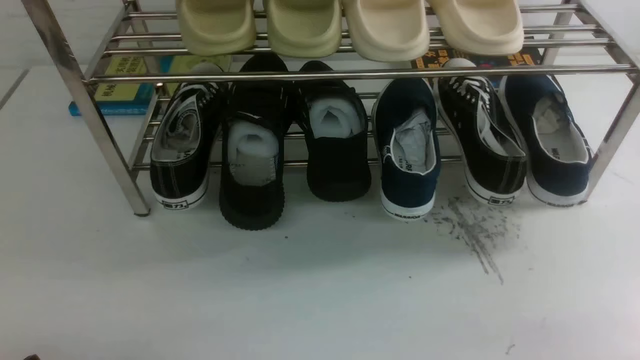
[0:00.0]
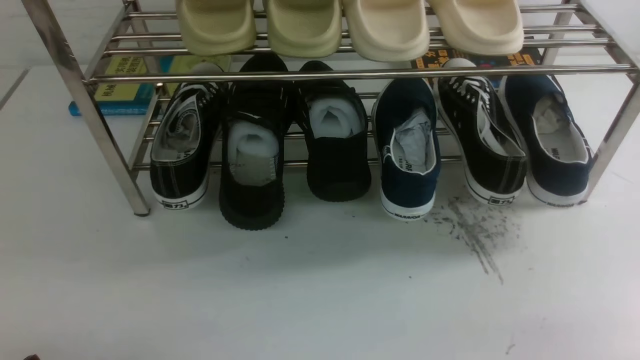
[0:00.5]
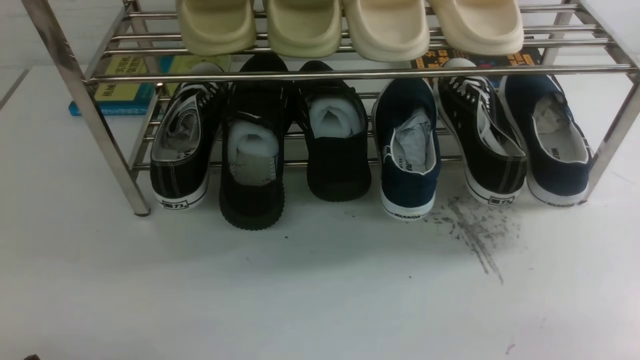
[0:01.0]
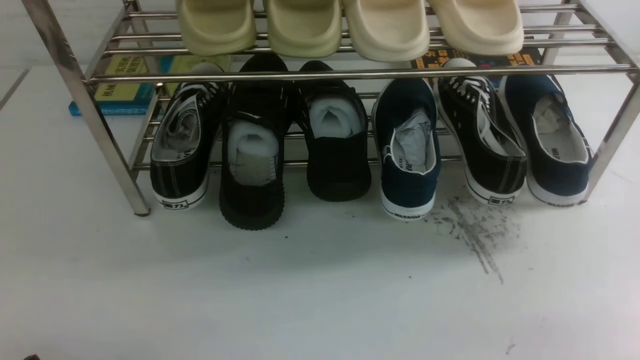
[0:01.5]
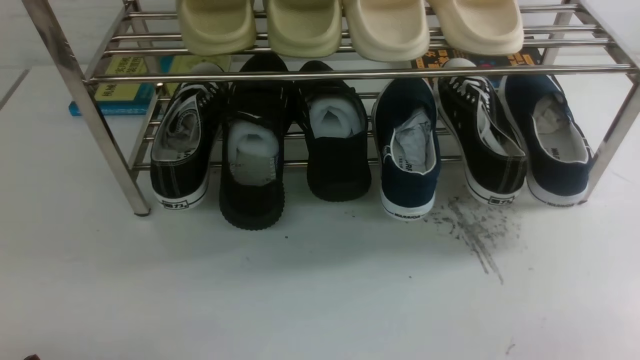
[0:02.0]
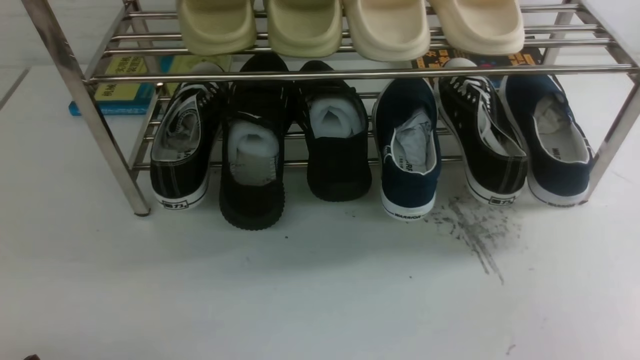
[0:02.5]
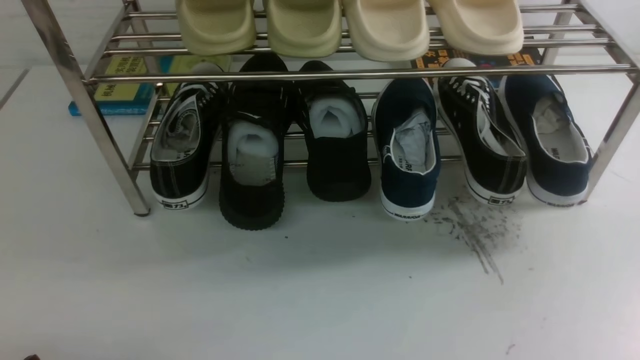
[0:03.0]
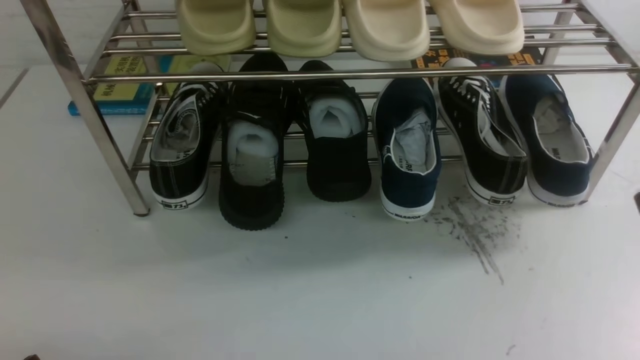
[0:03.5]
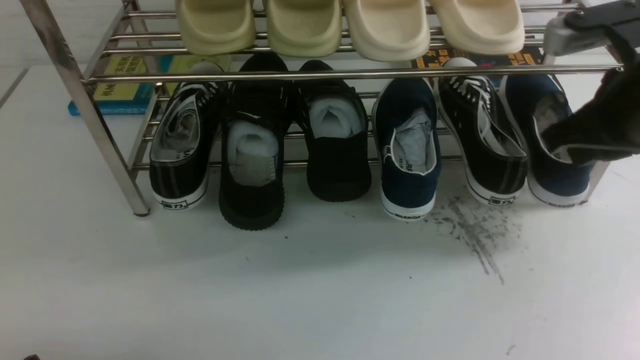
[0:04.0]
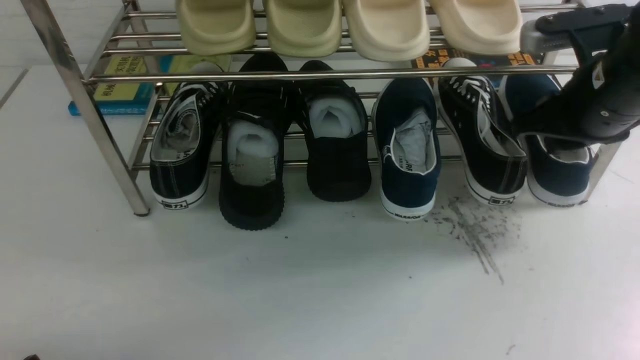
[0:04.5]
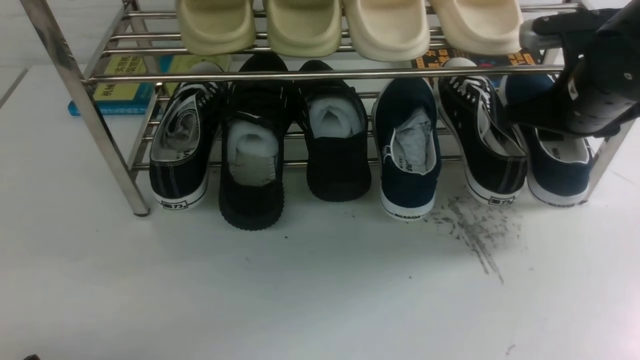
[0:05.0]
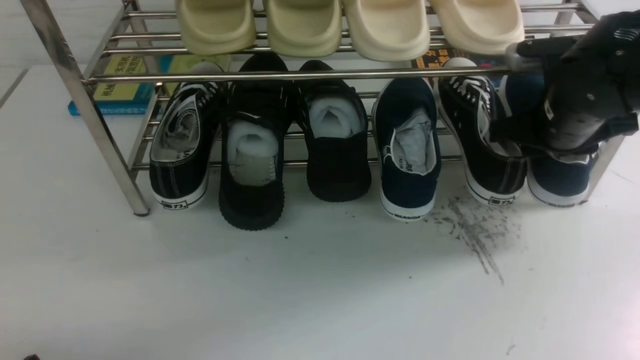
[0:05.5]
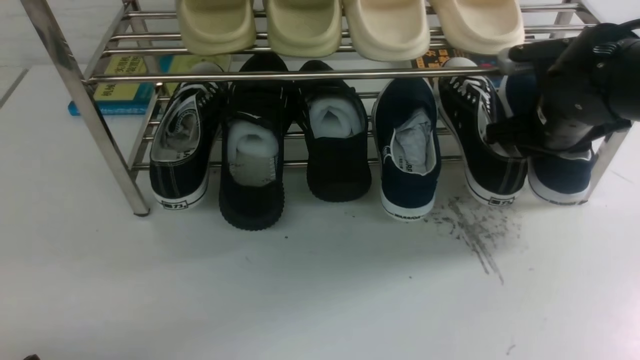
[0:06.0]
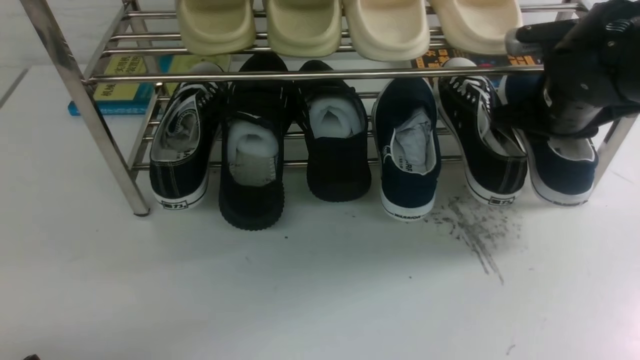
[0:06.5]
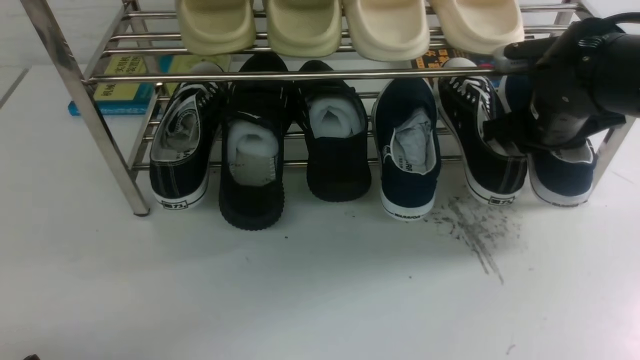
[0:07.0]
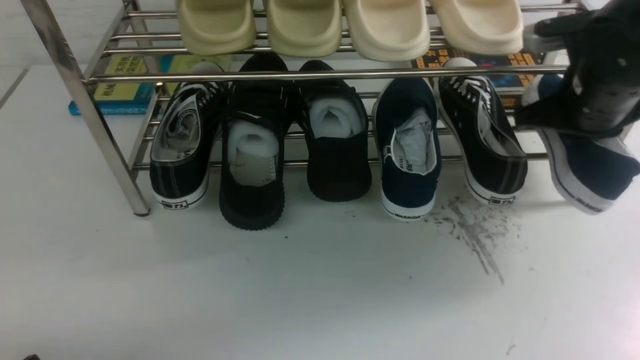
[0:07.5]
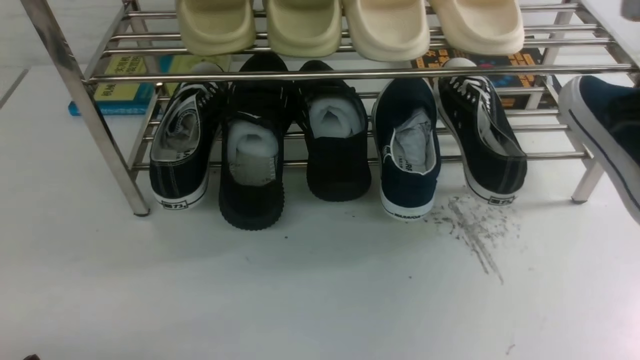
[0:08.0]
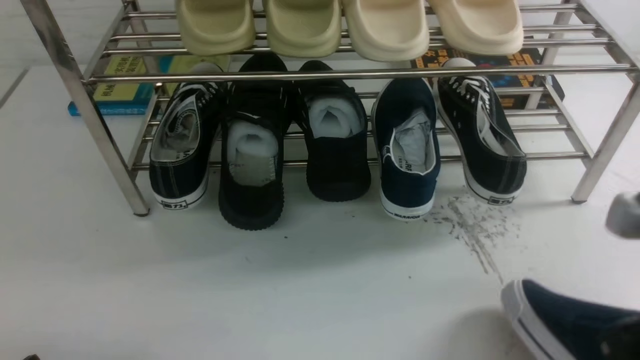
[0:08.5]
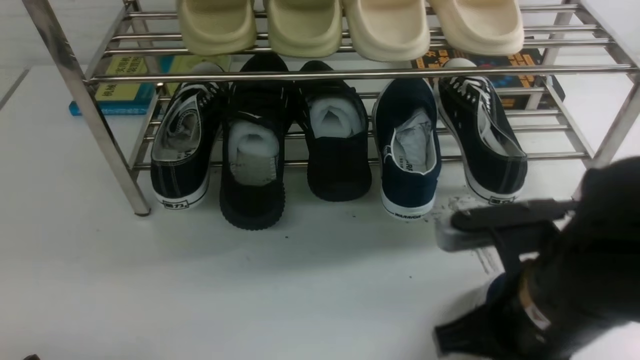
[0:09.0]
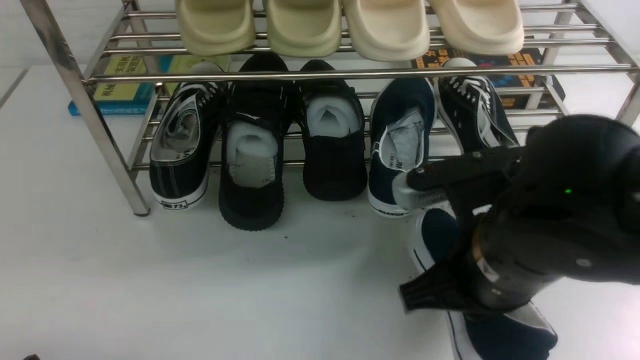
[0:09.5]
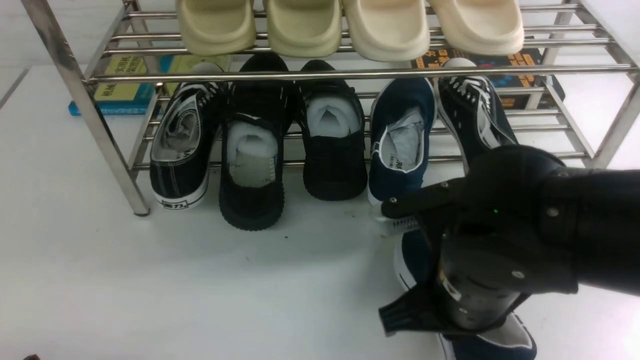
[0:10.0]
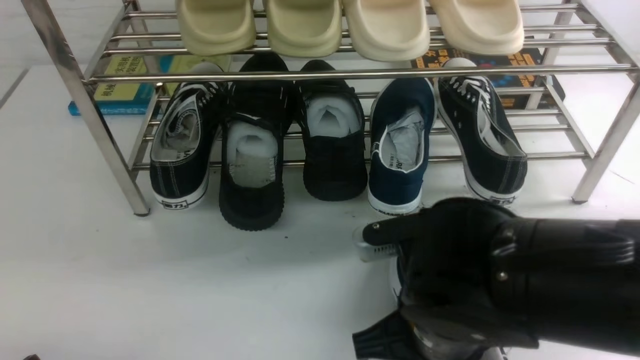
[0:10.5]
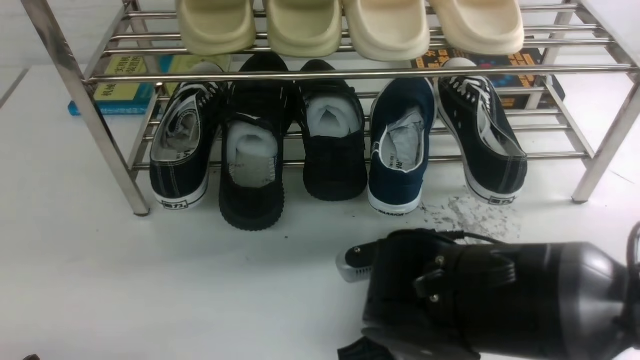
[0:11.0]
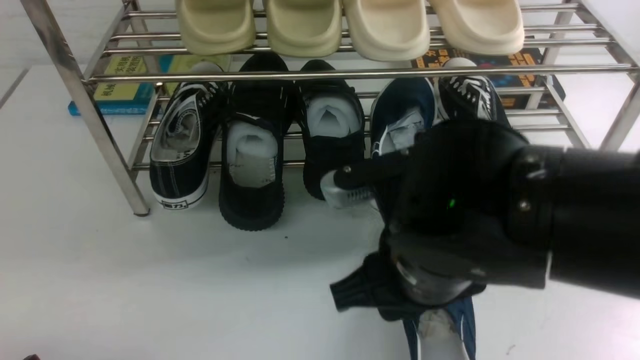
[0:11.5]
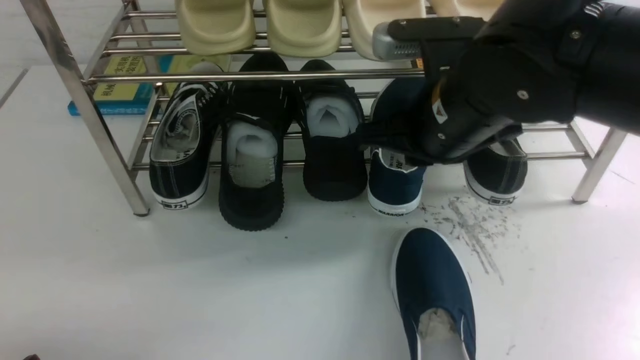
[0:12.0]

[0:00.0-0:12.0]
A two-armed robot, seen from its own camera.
Step, 0:00.0 to 0:07.5: use the right arm to clamp a shoe on the right side of the shoe rack.
Step, 0:08.0 to 0:11.5: use the right arm to take out the clamped shoe from the shoe rack and put it down.
0:02.0 to 0:04.0: The right gripper goes about 30 cm forward and upward, and closes.
0:04.0 to 0:06.0: The right gripper shifts roughly 15 cm forward and downward, and opens its fingers.
0:06.0 to 0:08.0: The right gripper goes roughly 20 cm backward and upward, and closes up.
0:08.0 to 0:10.0: The right gripper heads to the left and downward, covering about 20 cm.
0:10.0 to 0:12.0: The right gripper heads forward and upward, covering approximately 10 cm, and opens, then closes once more.

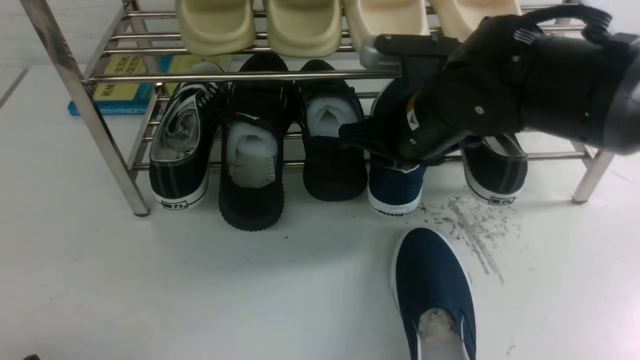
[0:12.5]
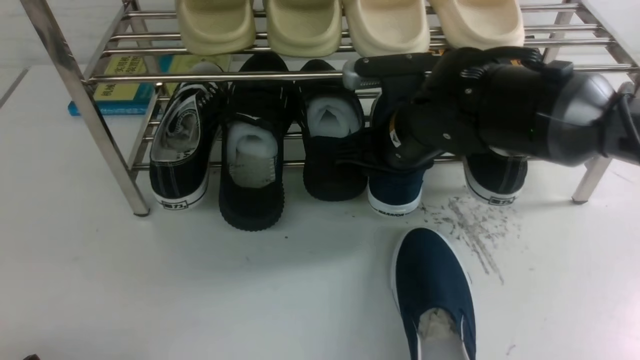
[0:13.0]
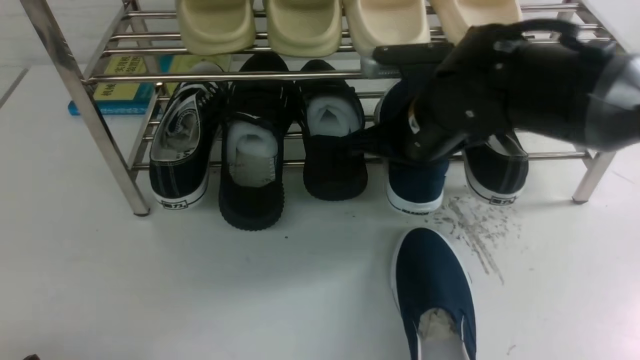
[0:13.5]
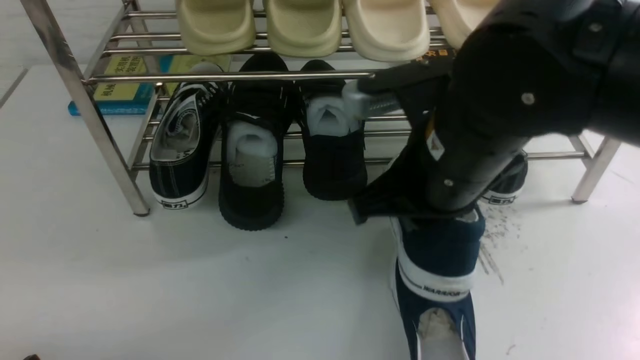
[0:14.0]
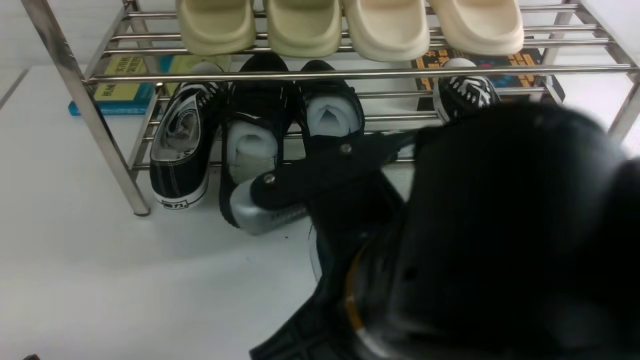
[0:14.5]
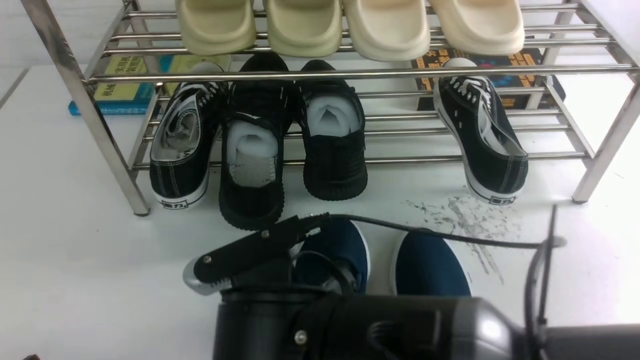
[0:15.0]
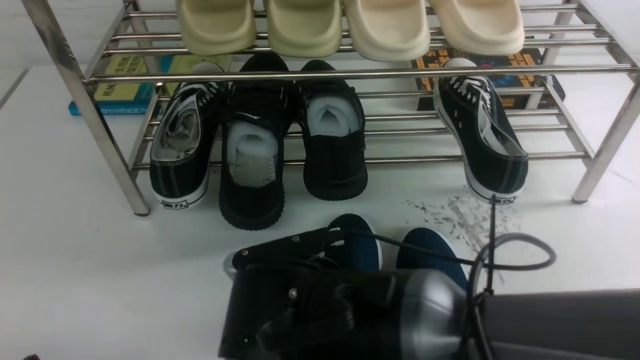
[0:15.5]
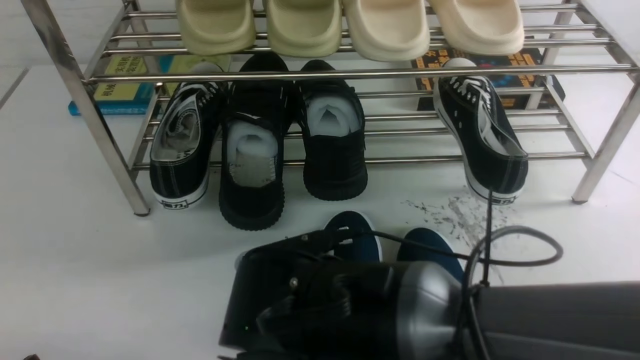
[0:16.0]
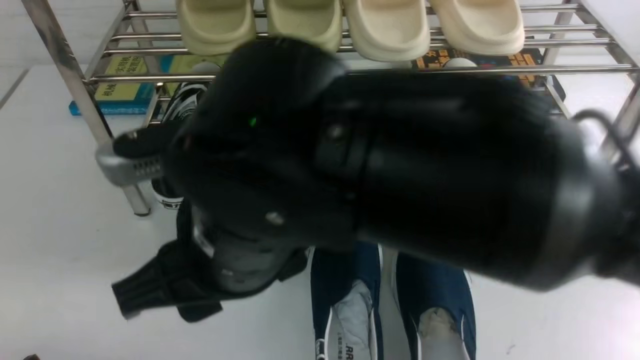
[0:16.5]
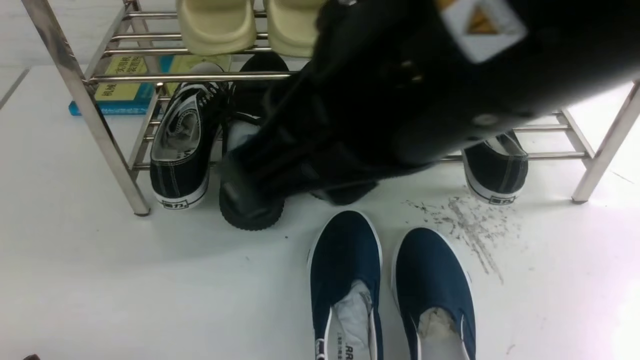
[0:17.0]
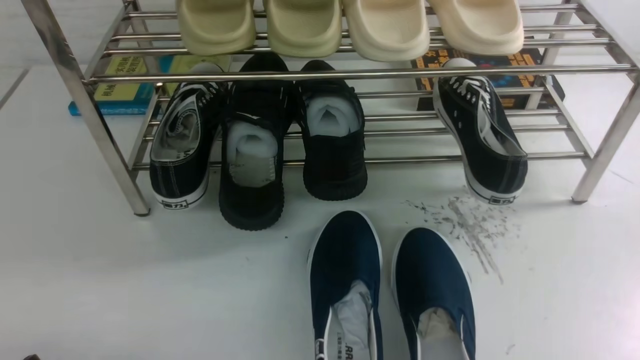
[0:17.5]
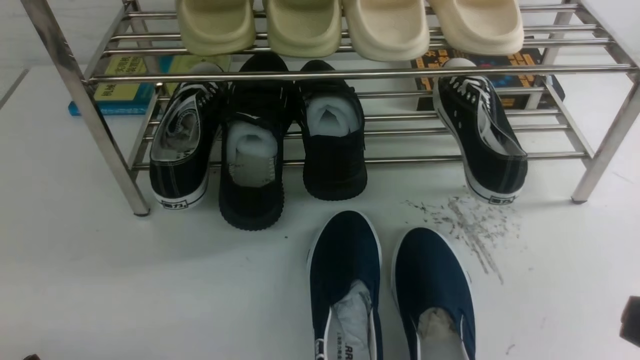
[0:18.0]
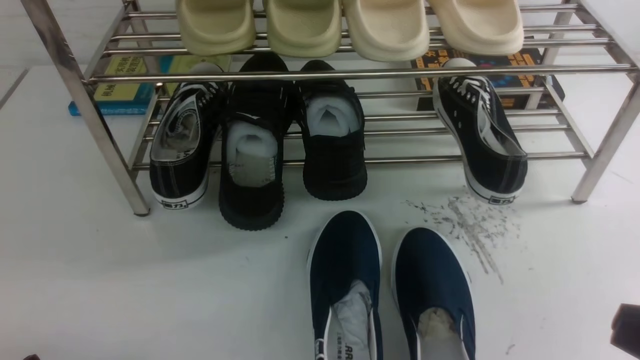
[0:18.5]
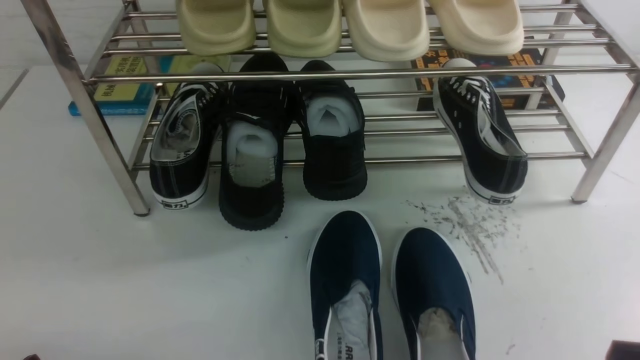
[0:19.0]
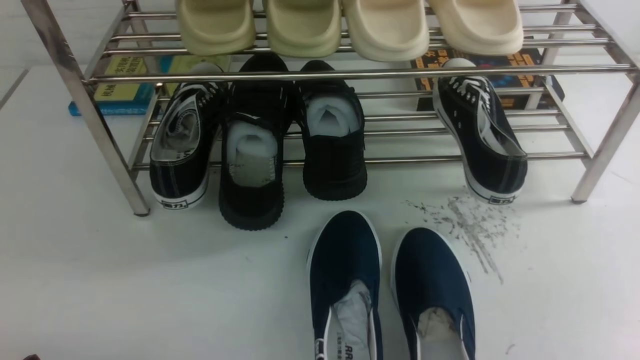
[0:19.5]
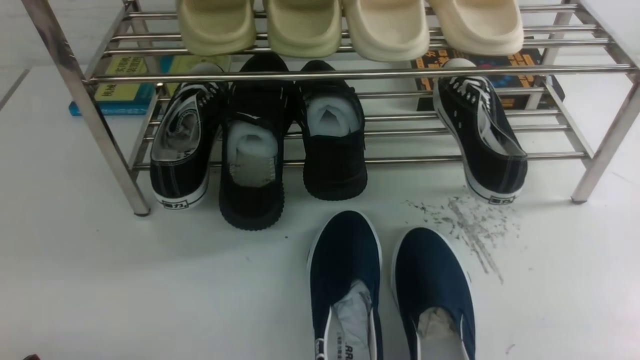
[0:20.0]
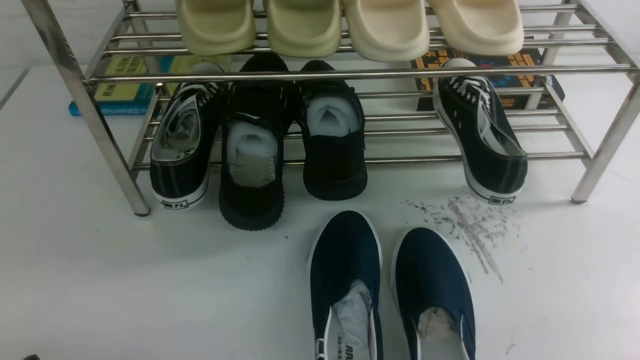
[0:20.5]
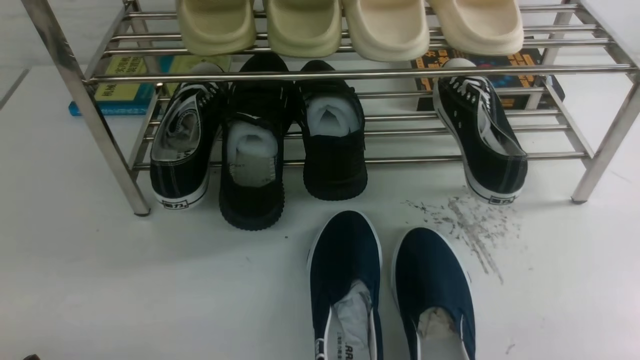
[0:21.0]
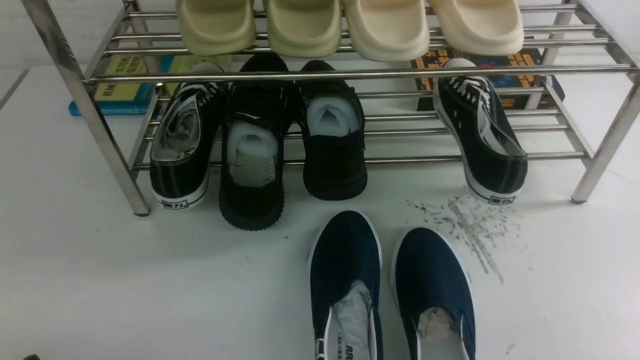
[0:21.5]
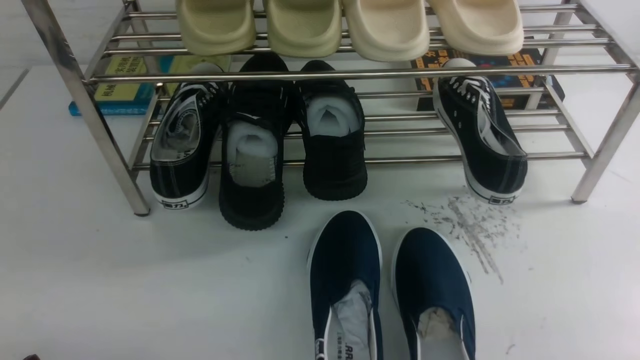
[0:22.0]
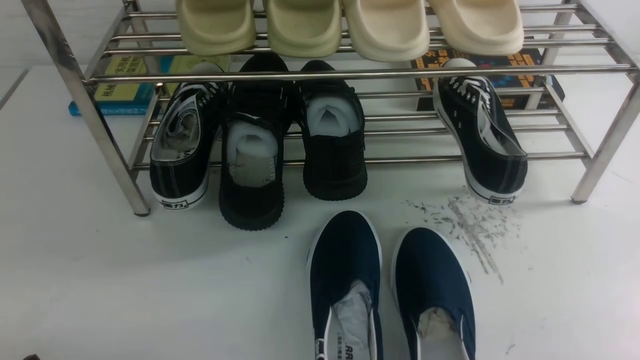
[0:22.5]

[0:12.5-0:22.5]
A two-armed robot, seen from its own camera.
Step, 0:12.5 to 0:13.5: use the right arm to clamp a shoe in the middle of the shoe rack.
Step, 0:14.0 to 0:16.0: use the right arm to take out the clamped shoe from the shoe rack and put it down.
0:12.5 to 0:14.5: The right gripper moves backward, about 20 cm, and closes up.
0:14.5 to 0:16.5: The right gripper is displaced to the left by some 5 cm, reaches about 15 cm downward, then returns, and opens up.
0:16.5 to 0:18.5: The right gripper shifts some 30 cm to the right and backward, and closes its fingers.
0:20.5 to 0:22.5: The two grippers keep their place.
